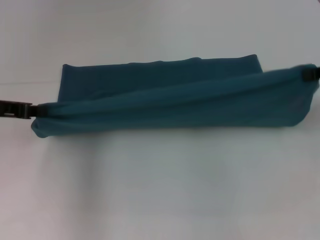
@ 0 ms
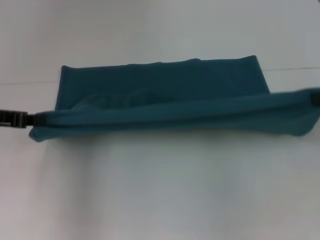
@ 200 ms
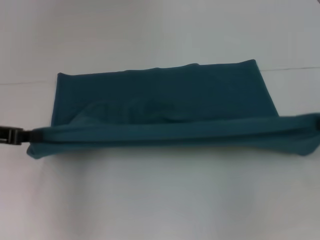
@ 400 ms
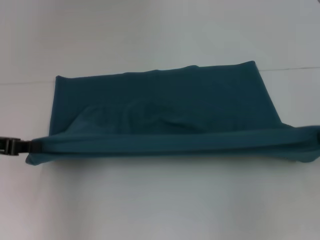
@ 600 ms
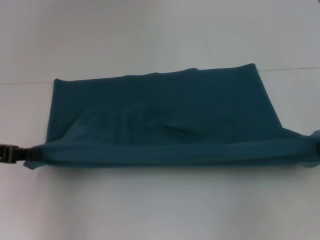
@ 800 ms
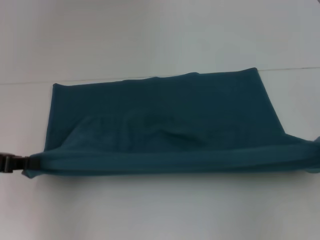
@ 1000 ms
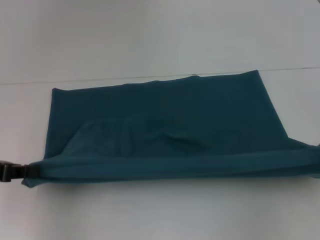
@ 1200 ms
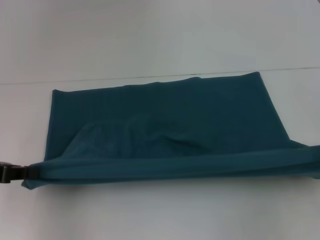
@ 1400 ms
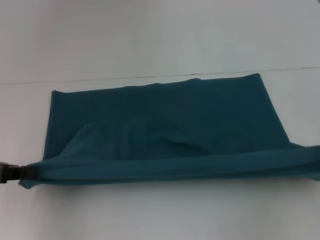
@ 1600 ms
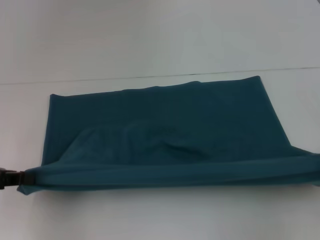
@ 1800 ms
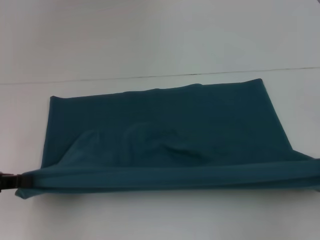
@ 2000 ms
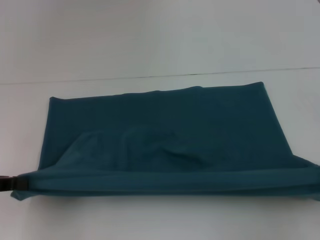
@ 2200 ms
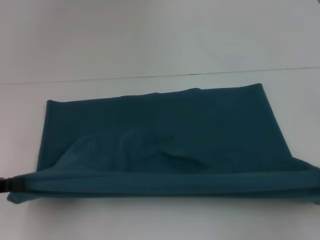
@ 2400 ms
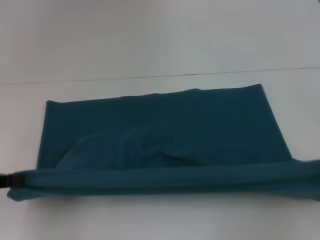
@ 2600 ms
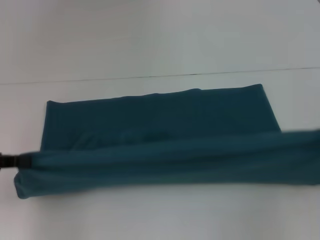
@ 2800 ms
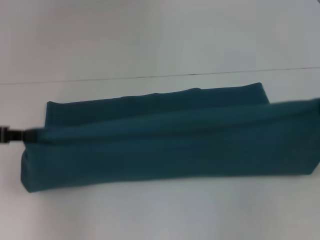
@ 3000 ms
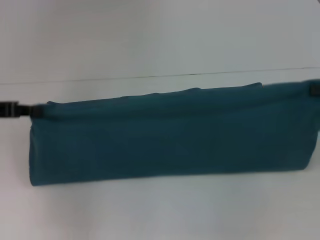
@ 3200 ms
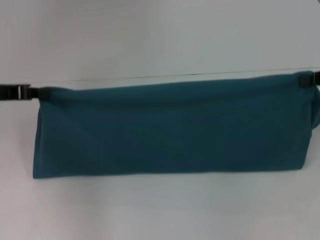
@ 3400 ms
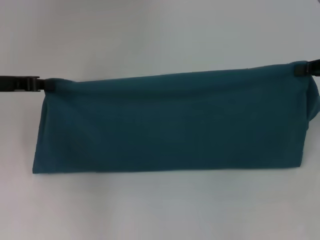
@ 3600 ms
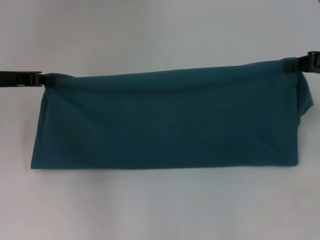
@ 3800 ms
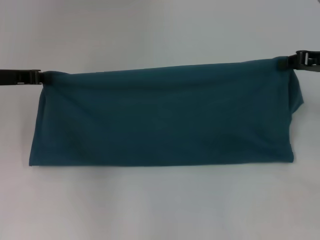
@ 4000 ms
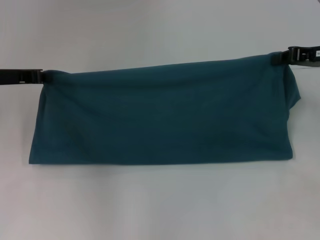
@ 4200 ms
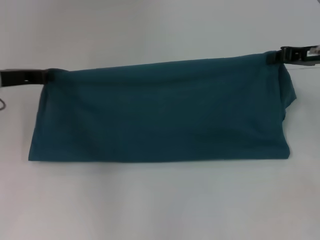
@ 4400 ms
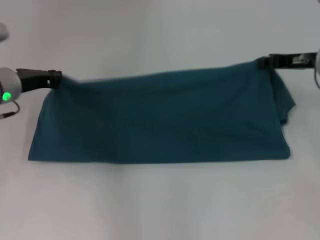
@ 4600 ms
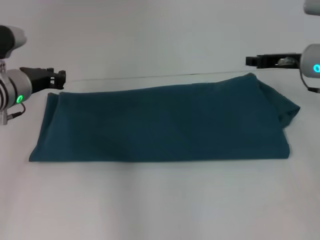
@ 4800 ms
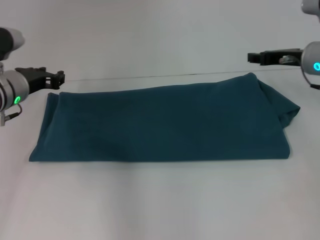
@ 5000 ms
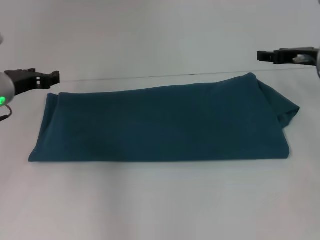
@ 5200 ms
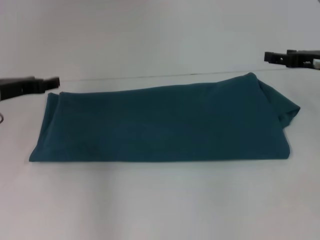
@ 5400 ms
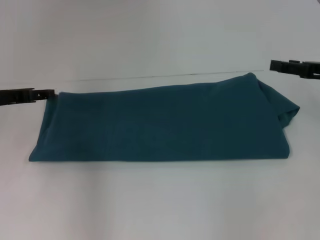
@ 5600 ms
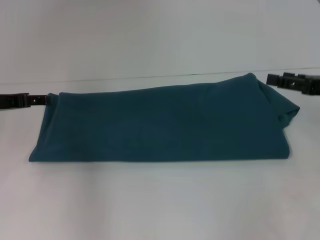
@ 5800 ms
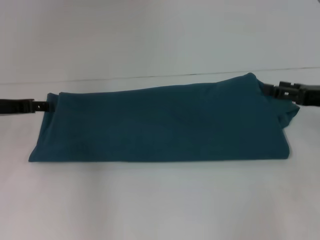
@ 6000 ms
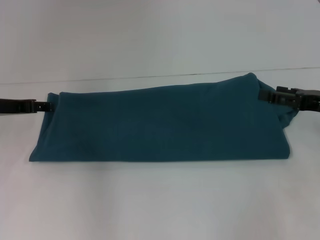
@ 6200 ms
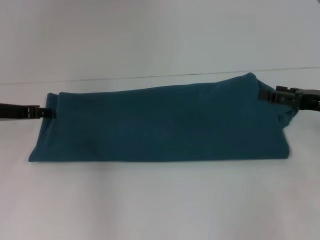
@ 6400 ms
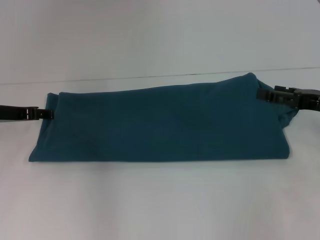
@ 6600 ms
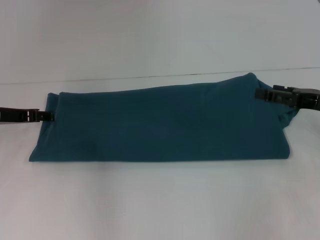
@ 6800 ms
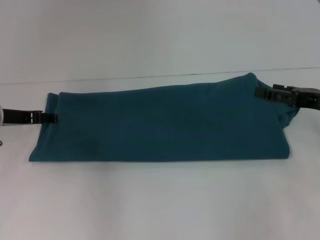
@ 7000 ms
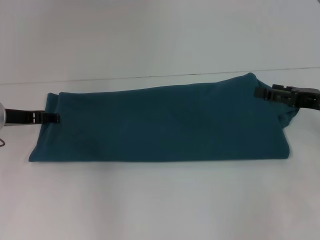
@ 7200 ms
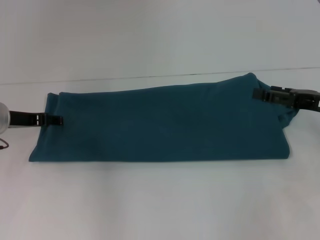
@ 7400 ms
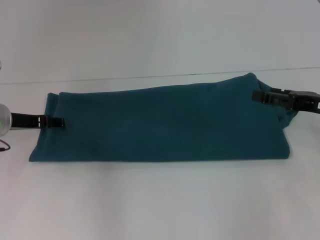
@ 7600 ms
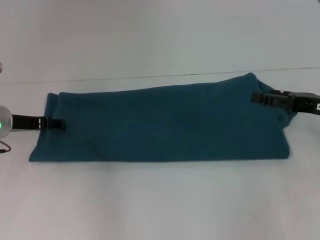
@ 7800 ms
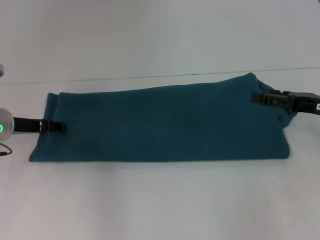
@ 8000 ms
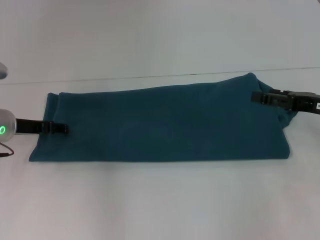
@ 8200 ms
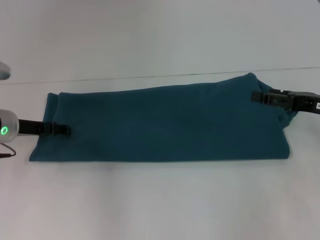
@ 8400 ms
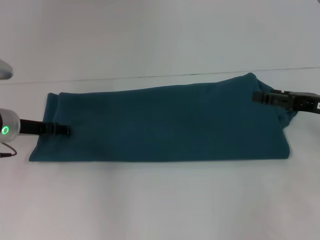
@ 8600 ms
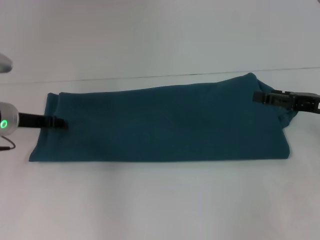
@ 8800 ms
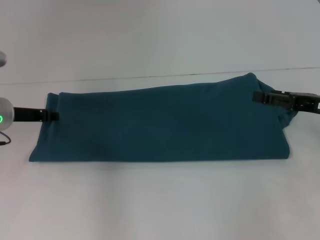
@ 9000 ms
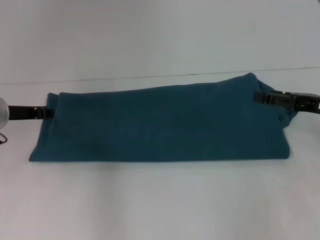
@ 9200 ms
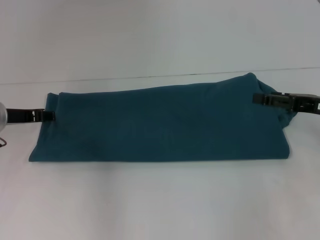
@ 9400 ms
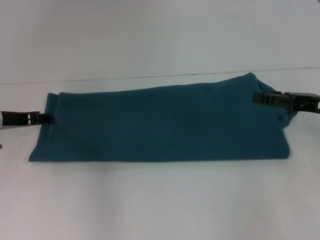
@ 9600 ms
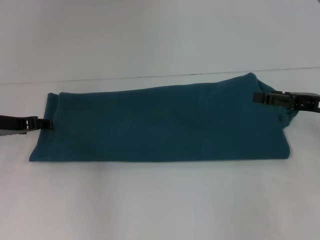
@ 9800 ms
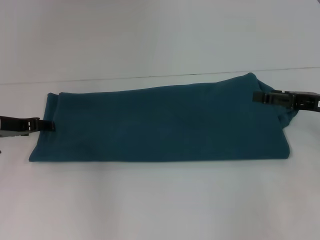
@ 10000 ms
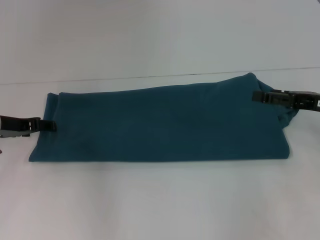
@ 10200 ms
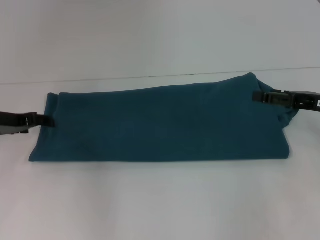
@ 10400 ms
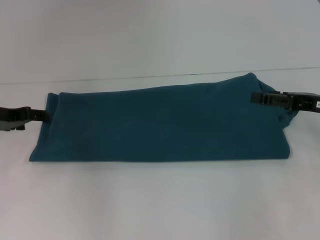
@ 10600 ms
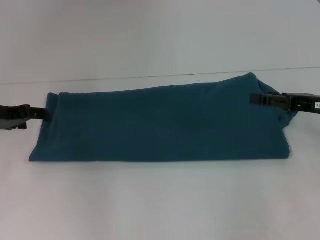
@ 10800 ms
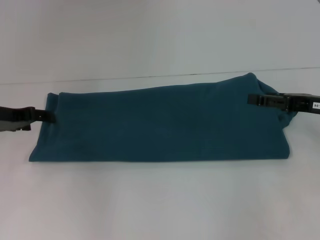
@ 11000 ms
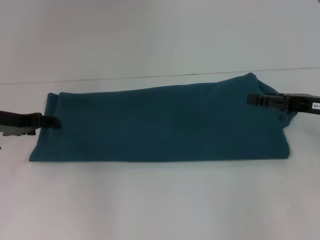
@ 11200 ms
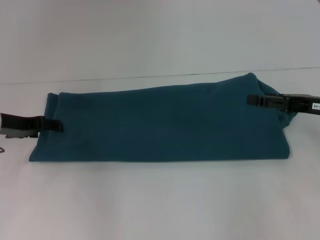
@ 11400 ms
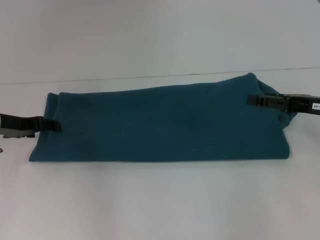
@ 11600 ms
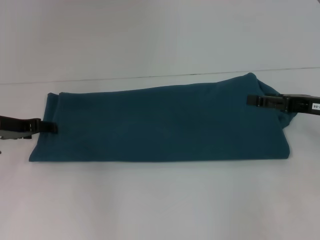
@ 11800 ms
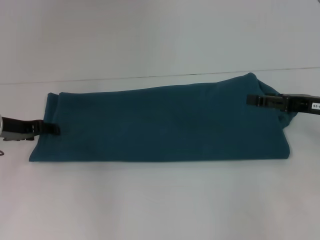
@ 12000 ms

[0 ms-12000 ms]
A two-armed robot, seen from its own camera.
Step, 1600 ms to 4800 ms: Fold the clothes to the left.
Step, 1600 ms to 4800 ms: Fold the clothes to the right.
0 ms to 1600 ms: The grippers both shift backward by roughly 10 cm.
1600 ms to 3000 ms: The grippers stay close to where they were, moving slightly.
3000 ms to 4400 ms: The right gripper heads forward and to the left, covering some 15 cm. Meanwhile the left gripper travels forward and to the right by approximately 10 cm.
4400 ms to 6000 ms: The left gripper opens up. The right gripper moves backward, about 10 cm, and opens its fingers.
6000 ms to 12000 ms: The grippers make only small movements.

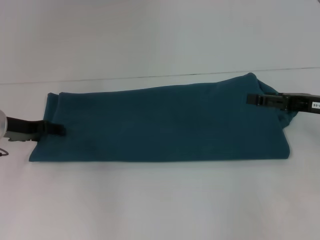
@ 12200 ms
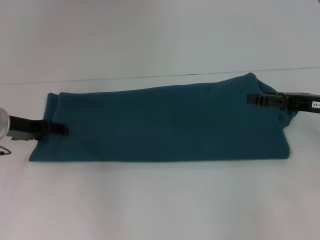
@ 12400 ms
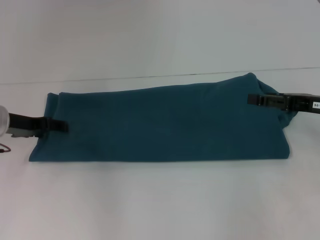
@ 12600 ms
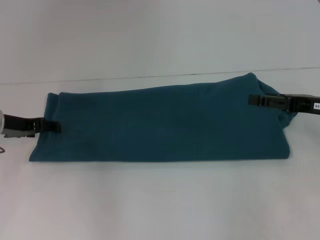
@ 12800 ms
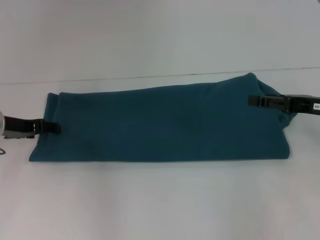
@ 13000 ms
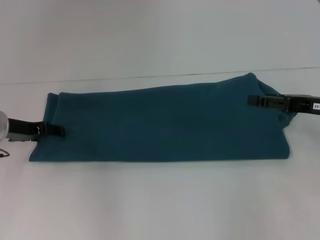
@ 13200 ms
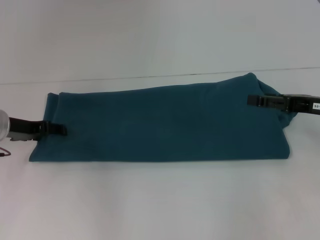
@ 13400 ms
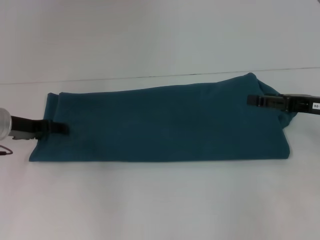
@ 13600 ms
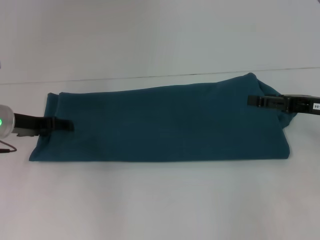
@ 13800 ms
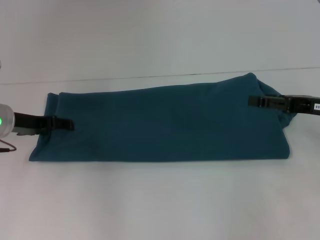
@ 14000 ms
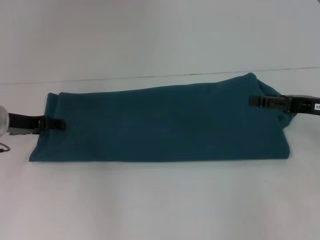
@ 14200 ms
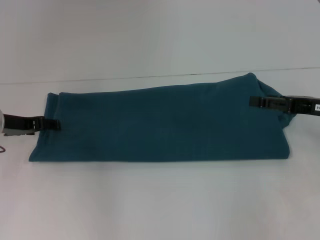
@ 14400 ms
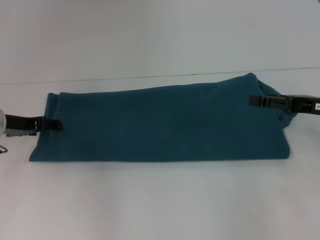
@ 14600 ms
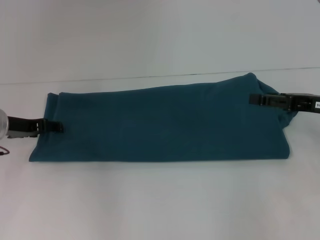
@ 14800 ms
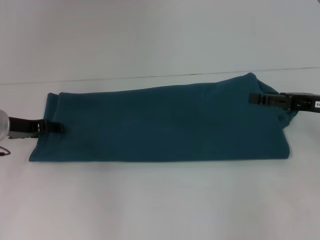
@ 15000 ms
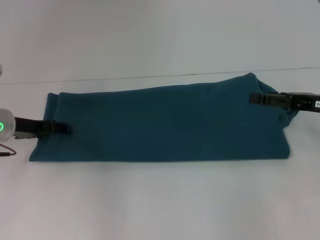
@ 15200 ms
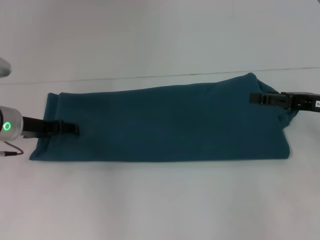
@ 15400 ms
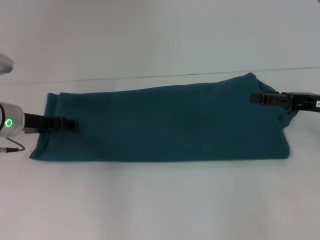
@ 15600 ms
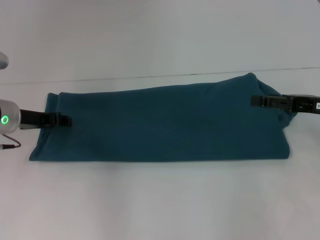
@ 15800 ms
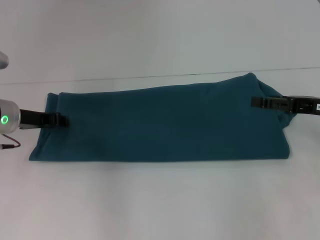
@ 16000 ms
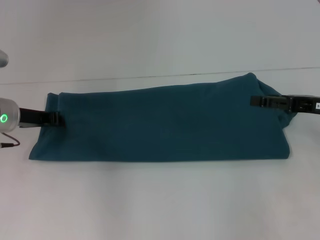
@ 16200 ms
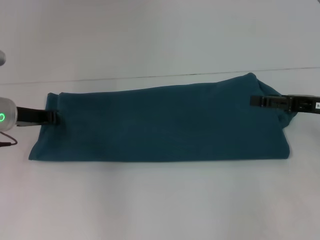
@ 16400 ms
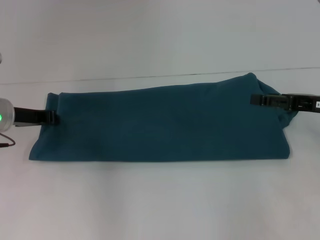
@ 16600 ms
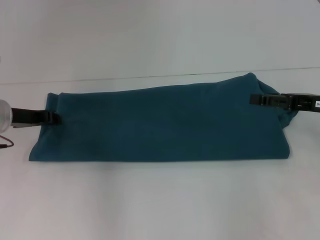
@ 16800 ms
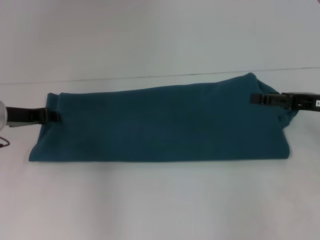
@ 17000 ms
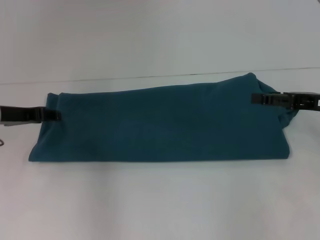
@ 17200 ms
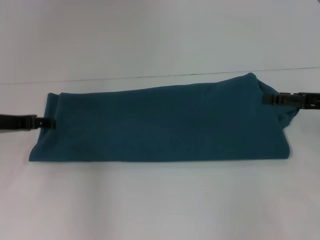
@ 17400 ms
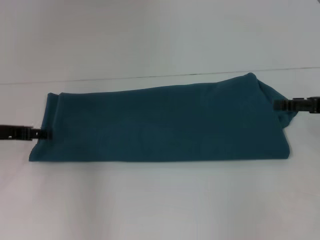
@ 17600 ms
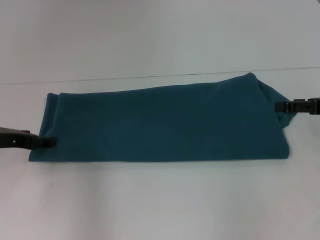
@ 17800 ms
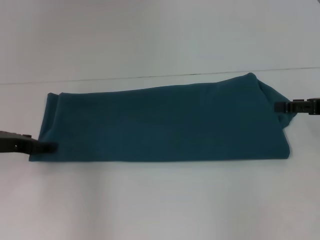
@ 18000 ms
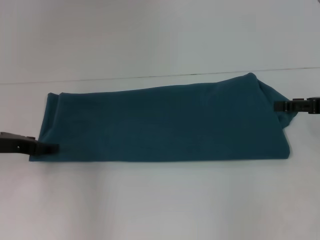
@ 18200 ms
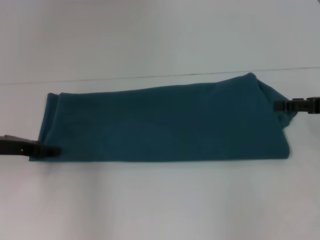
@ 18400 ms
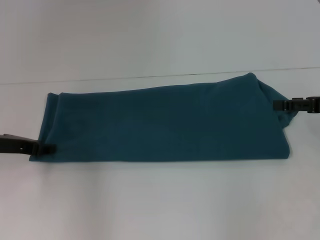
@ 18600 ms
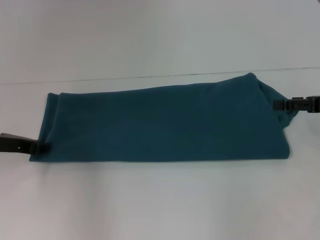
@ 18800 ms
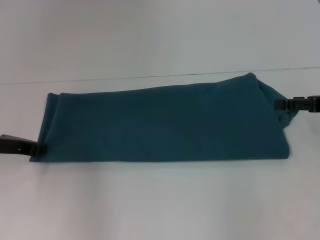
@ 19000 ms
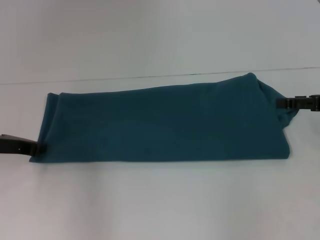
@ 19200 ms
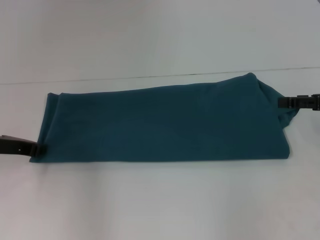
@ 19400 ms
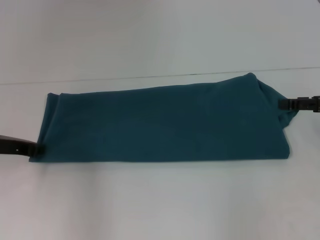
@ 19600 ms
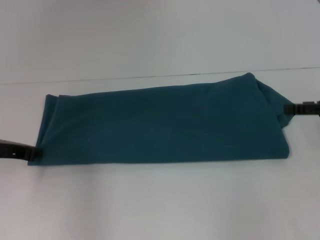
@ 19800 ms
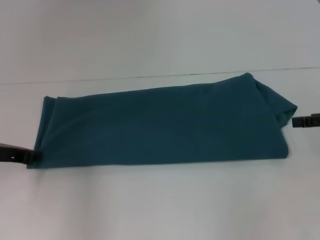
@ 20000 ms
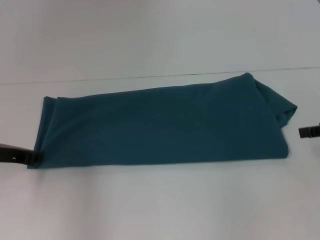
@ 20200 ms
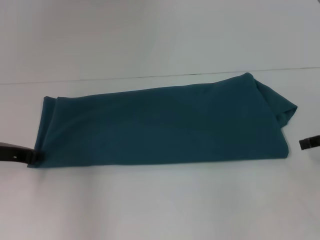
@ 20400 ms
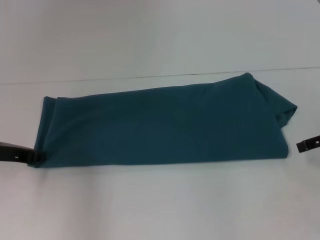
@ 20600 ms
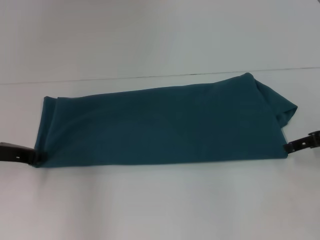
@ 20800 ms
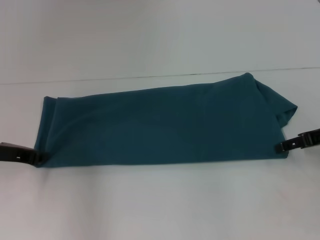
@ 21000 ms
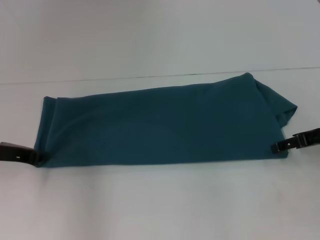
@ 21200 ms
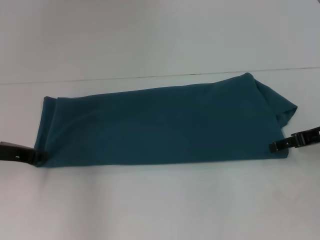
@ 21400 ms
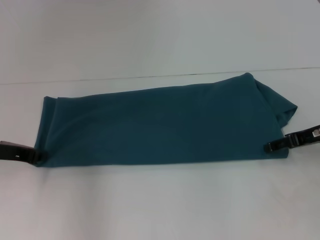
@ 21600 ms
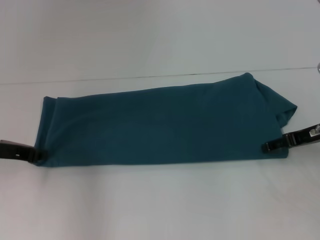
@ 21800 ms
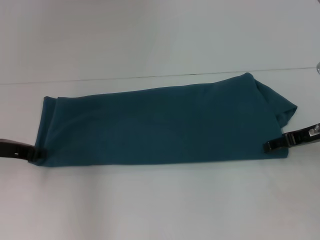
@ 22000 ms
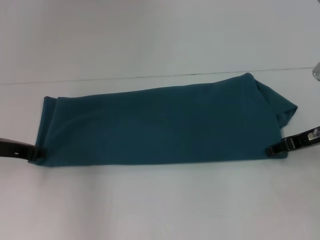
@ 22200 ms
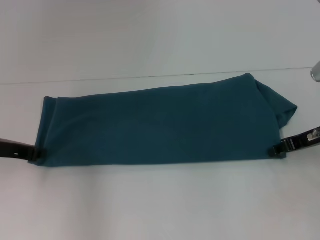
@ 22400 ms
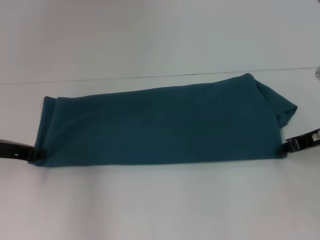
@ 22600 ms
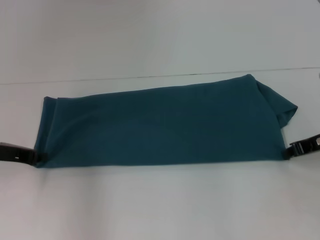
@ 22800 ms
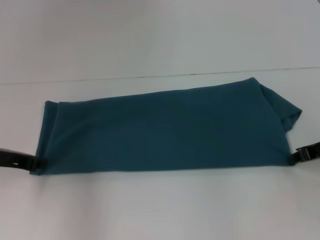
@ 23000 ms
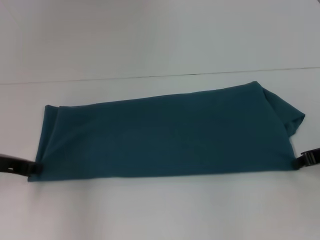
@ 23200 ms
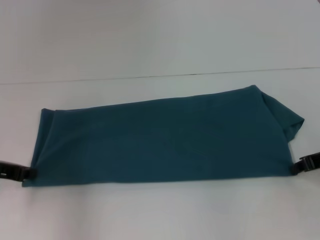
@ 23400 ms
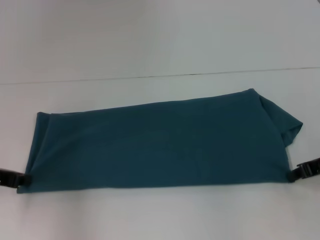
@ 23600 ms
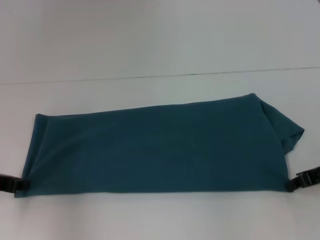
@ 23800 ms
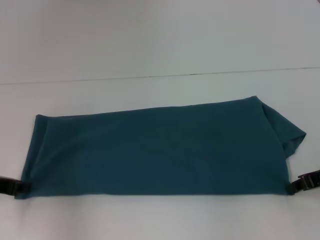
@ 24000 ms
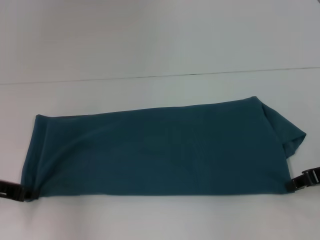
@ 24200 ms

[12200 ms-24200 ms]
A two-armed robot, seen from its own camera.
12200 ms to 15200 ms: Both grippers stay about where they are.
15200 ms to 16600 ms: The left gripper closes its fingers.
16600 ms to 18200 ms: The left gripper ends up roughly 5 cm from where it was, and opens up.
18200 ms to 19800 ms: The left gripper closes its fingers.
19800 ms to 21200 ms: The right gripper ends up approximately 5 cm from where it was.
22600 ms to 24200 ms: The right gripper is displaced backward by some 5 cm.
